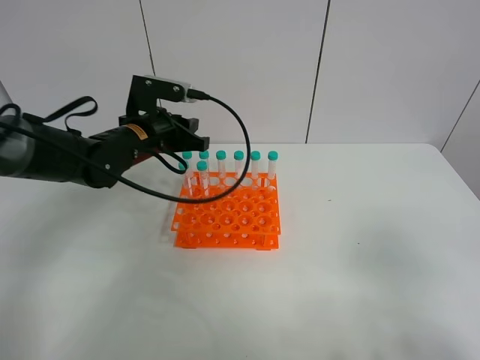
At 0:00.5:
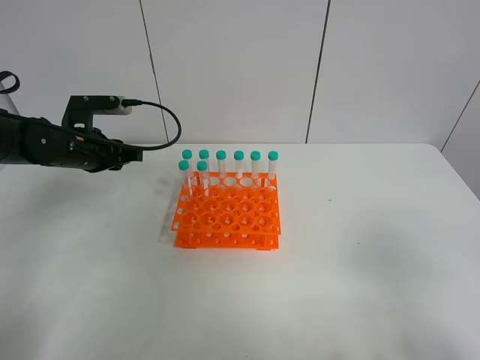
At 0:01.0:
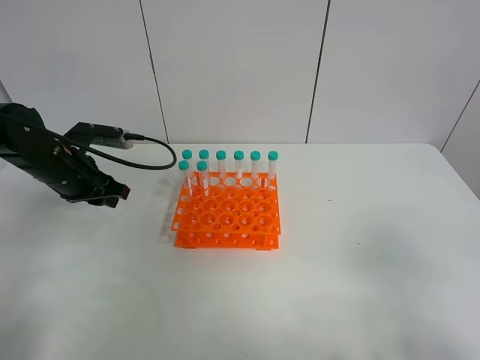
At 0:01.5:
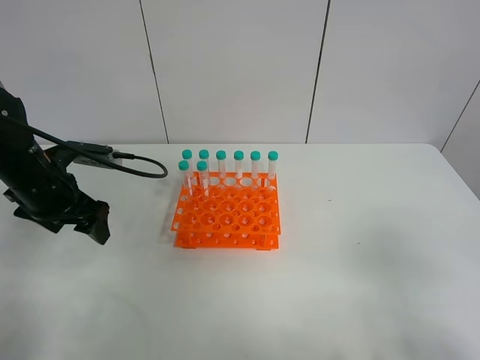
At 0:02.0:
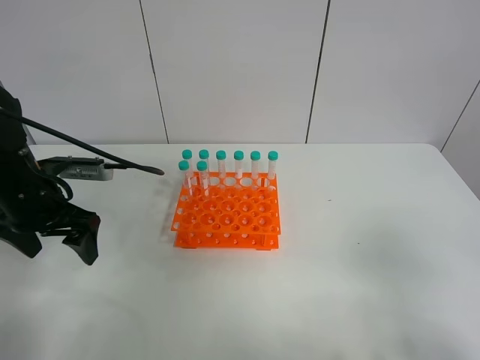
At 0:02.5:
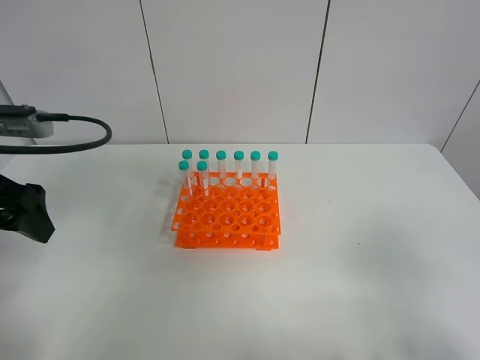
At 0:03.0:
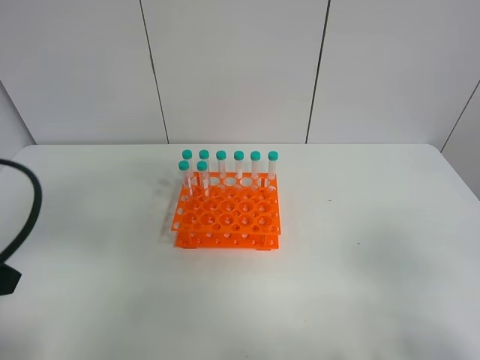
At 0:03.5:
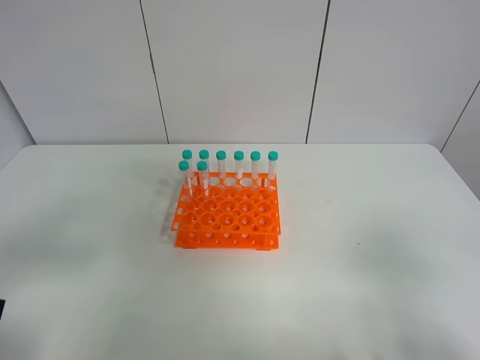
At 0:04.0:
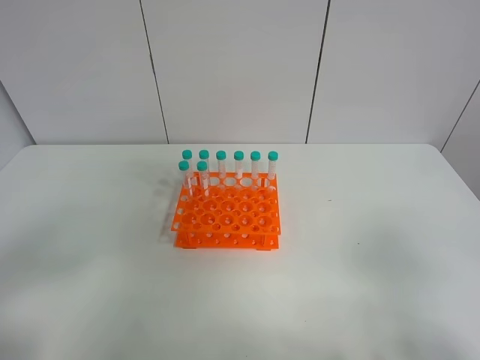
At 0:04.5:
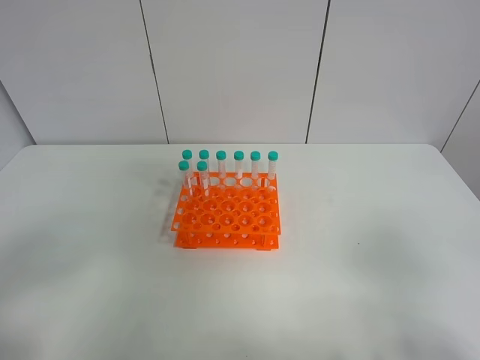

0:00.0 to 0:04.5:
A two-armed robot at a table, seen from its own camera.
Task of the whole recording: Put the test tube on the table back onto the test tube rack.
0:00.0 to 0:02.0: The left gripper shifts approximately 15 cm backward and to the left, and opens.
0:02.0 to 0:04.5: The left gripper is displaced backward by some 25 cm.
